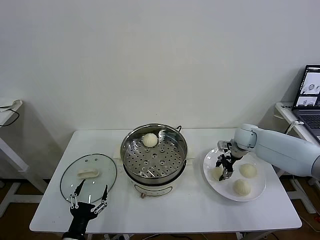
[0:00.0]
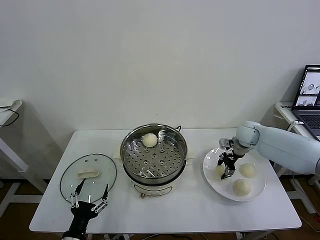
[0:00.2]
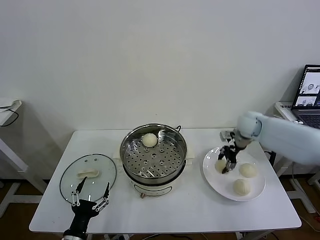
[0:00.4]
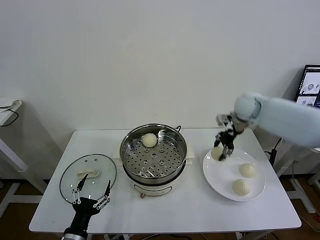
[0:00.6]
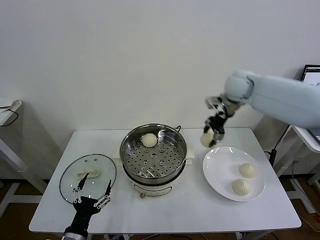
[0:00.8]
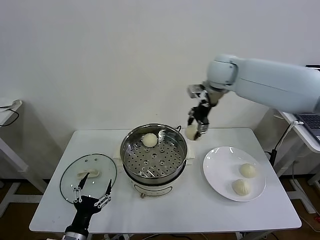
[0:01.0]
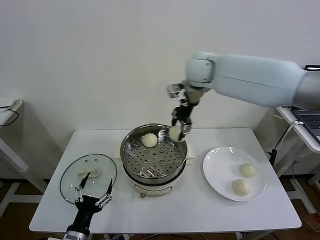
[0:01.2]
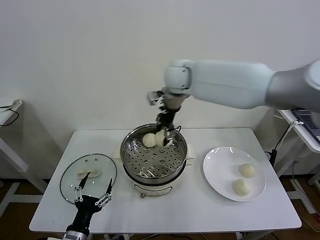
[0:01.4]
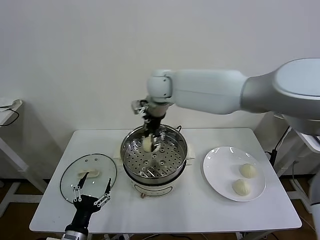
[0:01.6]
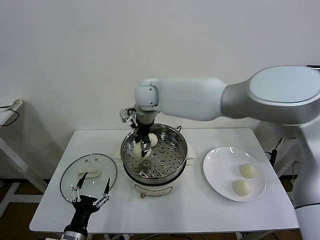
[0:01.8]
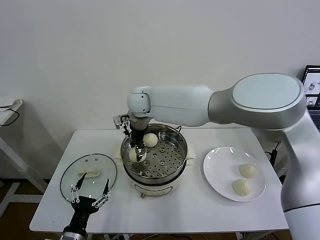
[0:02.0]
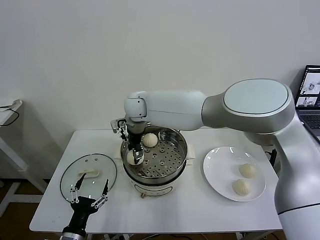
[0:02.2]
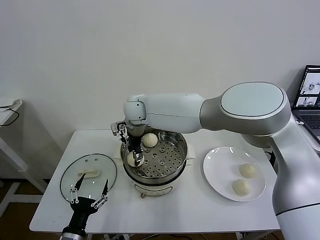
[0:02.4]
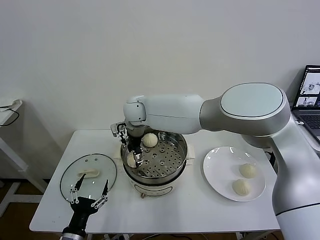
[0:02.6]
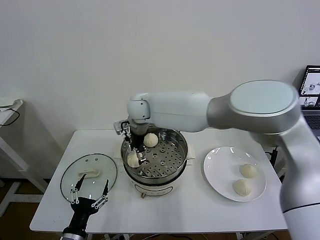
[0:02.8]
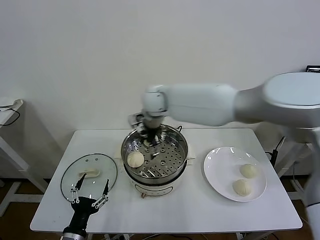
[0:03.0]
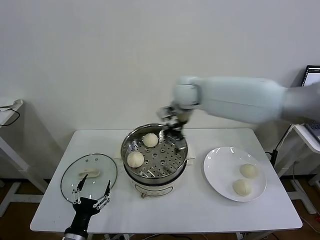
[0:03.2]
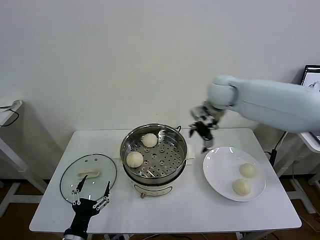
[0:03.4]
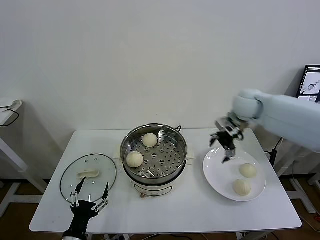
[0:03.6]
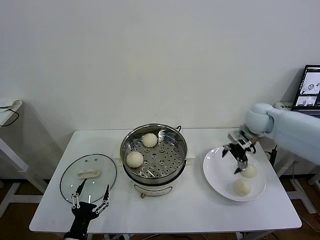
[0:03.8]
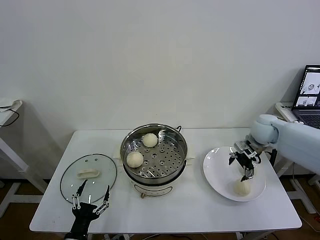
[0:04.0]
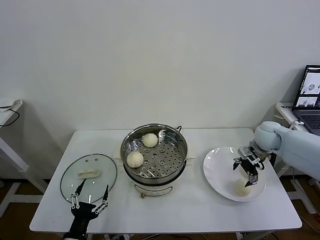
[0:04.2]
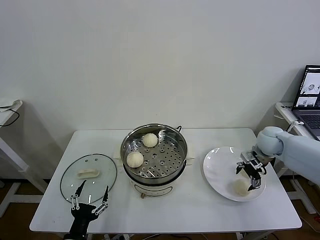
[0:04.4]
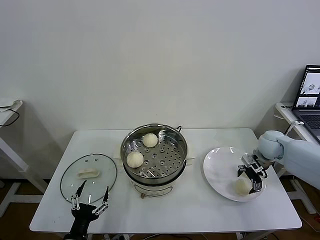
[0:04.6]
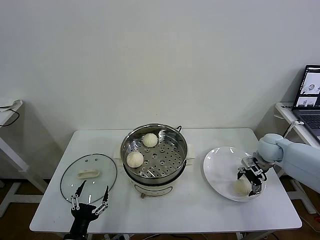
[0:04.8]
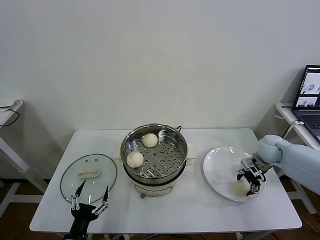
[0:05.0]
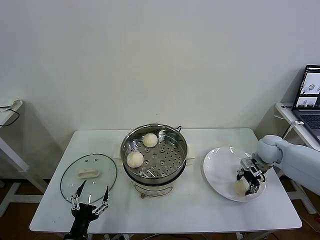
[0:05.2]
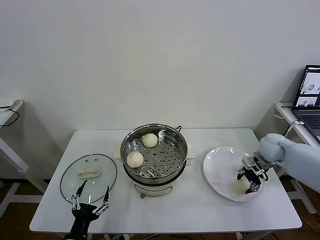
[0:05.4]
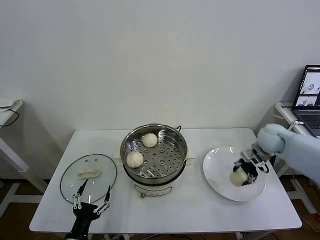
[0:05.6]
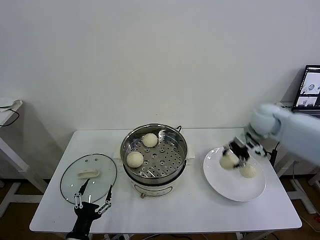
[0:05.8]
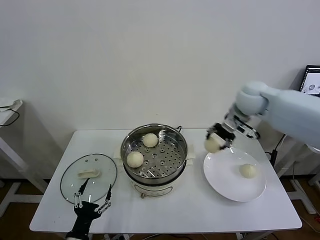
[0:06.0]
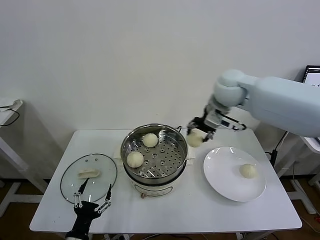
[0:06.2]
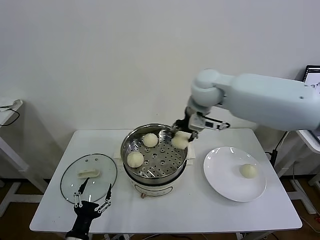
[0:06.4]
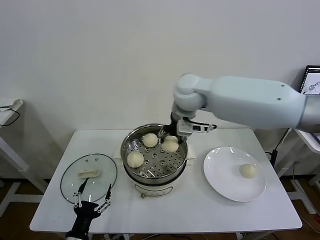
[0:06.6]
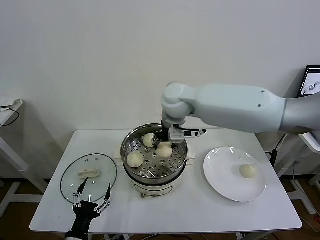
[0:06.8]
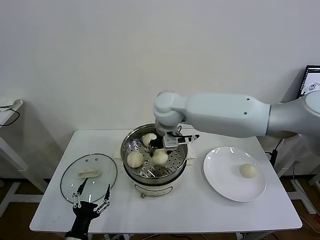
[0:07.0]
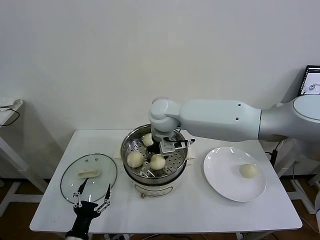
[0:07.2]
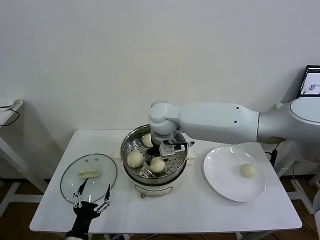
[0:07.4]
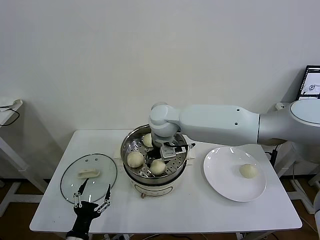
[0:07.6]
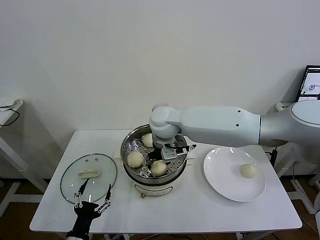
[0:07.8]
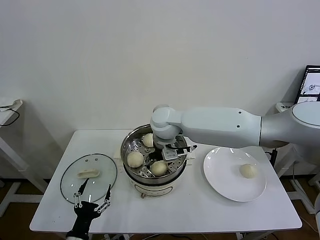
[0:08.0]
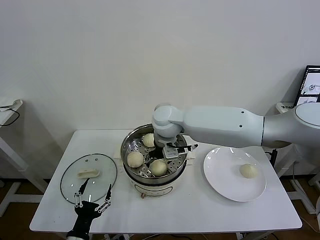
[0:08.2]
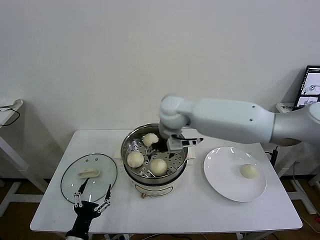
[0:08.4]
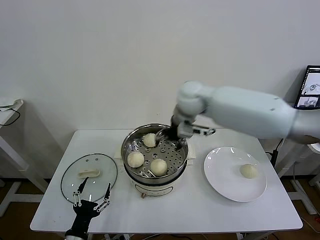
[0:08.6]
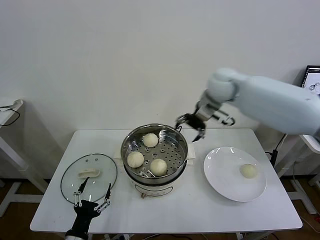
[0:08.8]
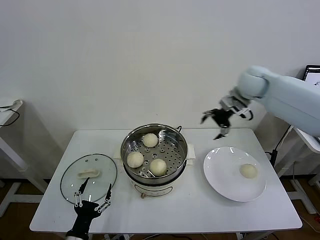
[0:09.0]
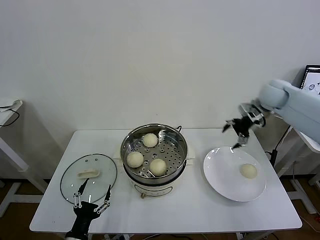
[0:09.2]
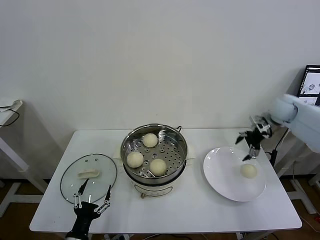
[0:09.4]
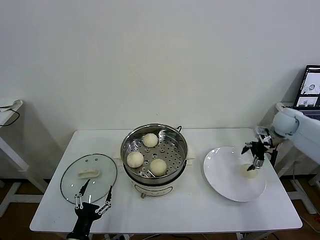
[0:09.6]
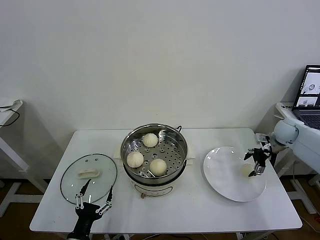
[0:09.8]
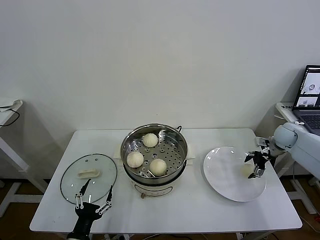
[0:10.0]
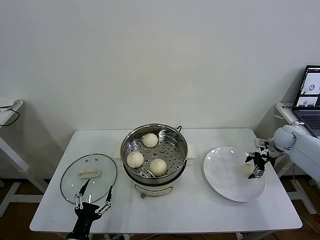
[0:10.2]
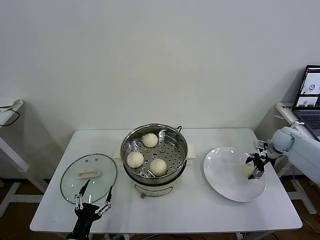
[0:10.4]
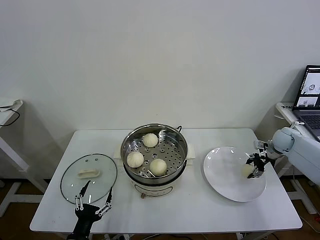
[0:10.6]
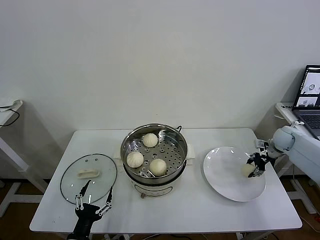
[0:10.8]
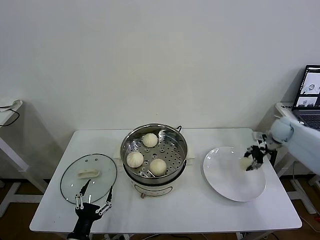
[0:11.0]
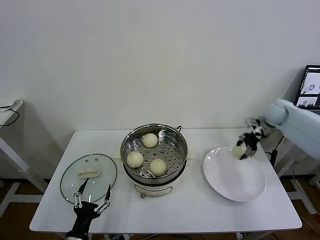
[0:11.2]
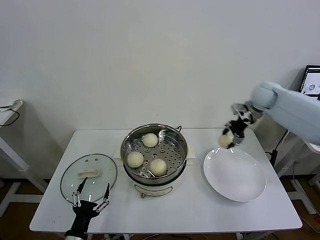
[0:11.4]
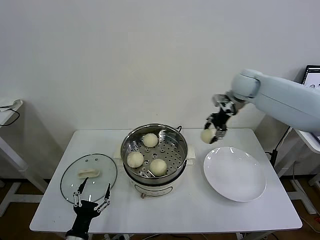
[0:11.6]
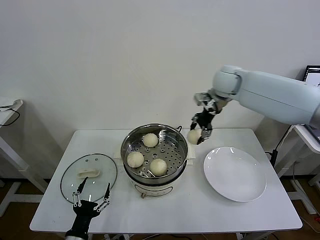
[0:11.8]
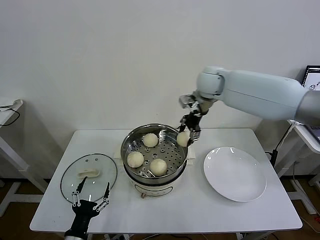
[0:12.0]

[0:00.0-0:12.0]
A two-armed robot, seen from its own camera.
Task of the whole recording: take steamed baozi put them in steamer then cover it.
Step, 0:00.0 to 0:02.6: Place the baozi on the steamer with right gripper.
Step, 0:02.8 to 0:05.2: Grasp the baozi in the plate with right gripper.
Step, 0:05.4 to 0:08.0: Place the baozi on the steamer with right gripper.
Step, 0:08.4 to 0:10.8: Grasp the baozi in the plate with right gripper.
0:00.0 to 0:01.6: The right gripper shifts approximately 40 cm to the left and upward.
0:01.6 to 0:03.0: The right gripper travels to the left and back again, about 5 cm each way, and opens up.
0:03.0 to 0:04.4: The right gripper travels to the right and downward by some 40 cm.
0:04.4 to 0:06.0: The right gripper shifts about 25 cm upward and to the left, and closes its fingers.
0:06.0 to 0:07.6: The right gripper moves to the left, roughly 25 cm.
0:07.6 to 0:09.0: The right gripper is displaced to the right by roughly 30 cm, and opens.
0:09.0 to 0:10.4: The right gripper is displaced downward and to the right by about 30 cm.
0:10.4 to 0:12.0: The right gripper is displaced to the left and upward by approximately 40 cm, and closes up.

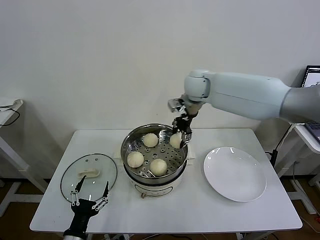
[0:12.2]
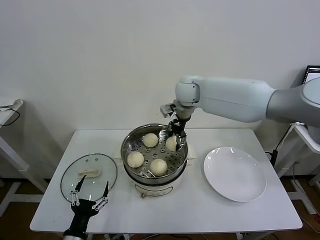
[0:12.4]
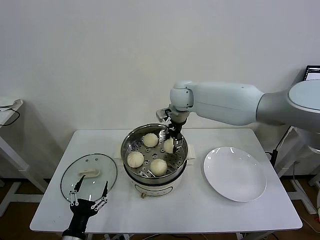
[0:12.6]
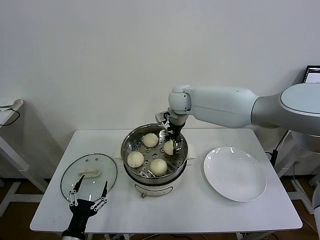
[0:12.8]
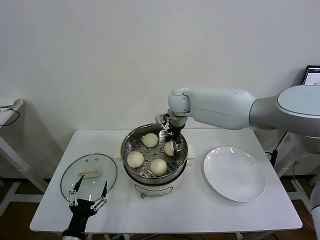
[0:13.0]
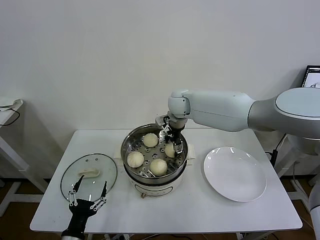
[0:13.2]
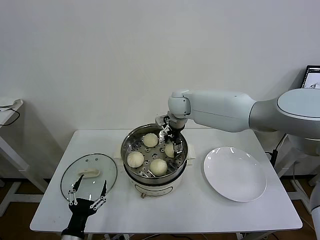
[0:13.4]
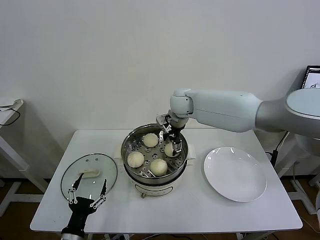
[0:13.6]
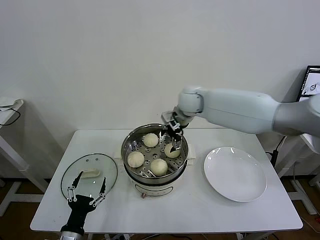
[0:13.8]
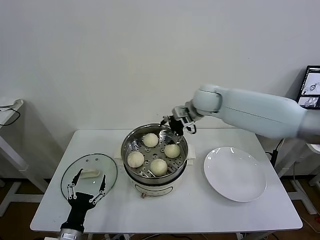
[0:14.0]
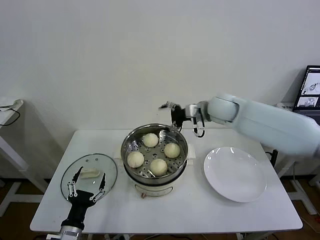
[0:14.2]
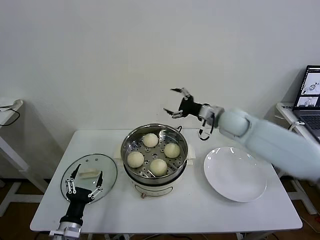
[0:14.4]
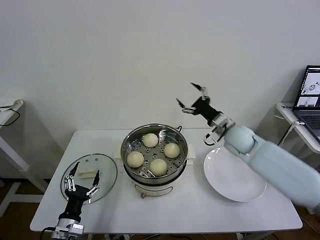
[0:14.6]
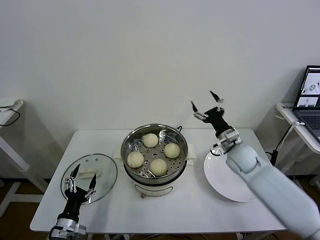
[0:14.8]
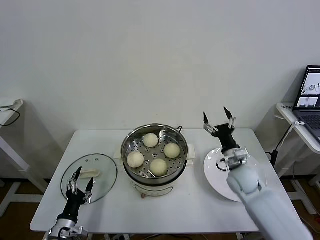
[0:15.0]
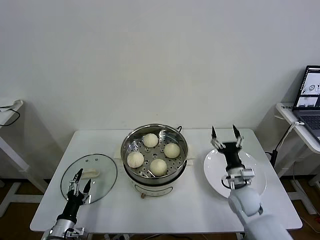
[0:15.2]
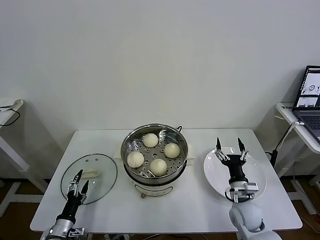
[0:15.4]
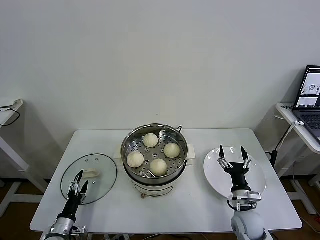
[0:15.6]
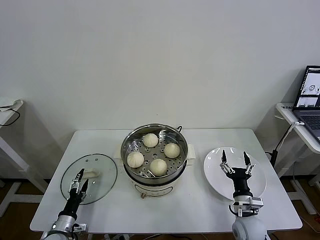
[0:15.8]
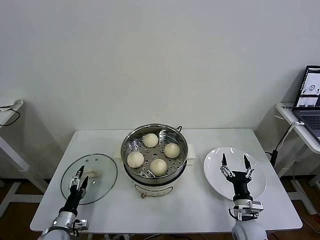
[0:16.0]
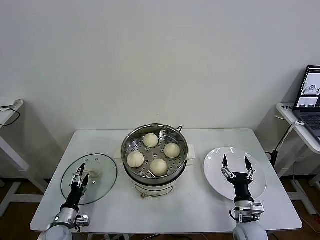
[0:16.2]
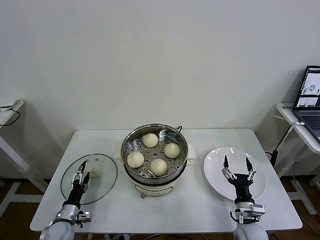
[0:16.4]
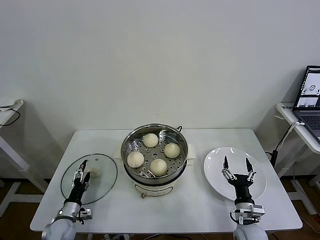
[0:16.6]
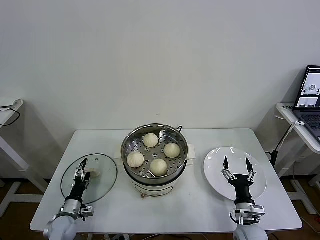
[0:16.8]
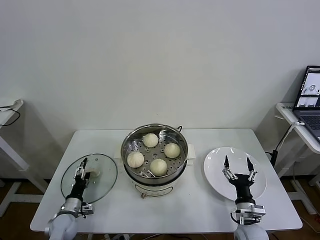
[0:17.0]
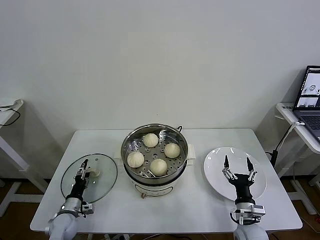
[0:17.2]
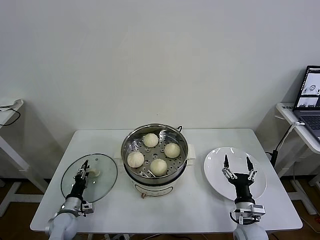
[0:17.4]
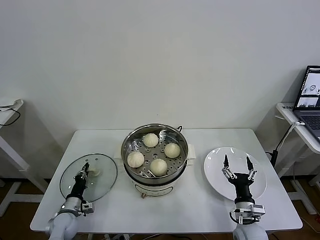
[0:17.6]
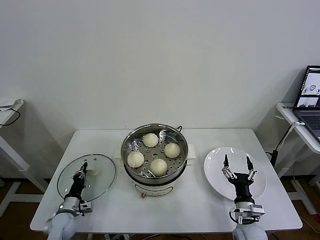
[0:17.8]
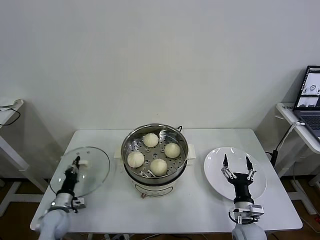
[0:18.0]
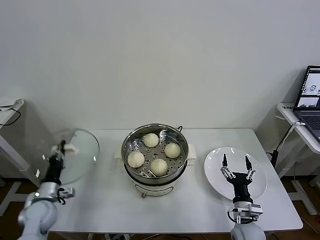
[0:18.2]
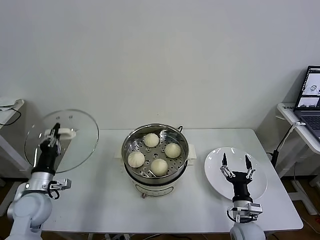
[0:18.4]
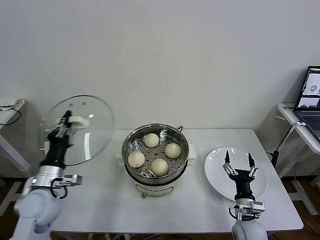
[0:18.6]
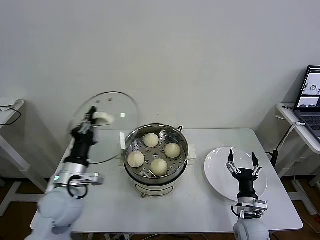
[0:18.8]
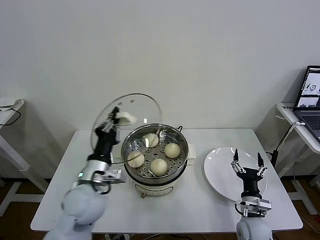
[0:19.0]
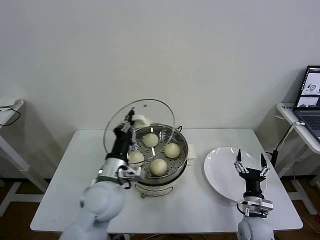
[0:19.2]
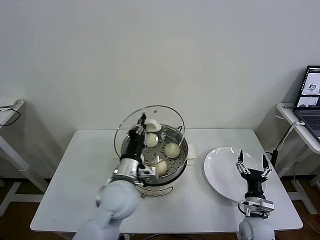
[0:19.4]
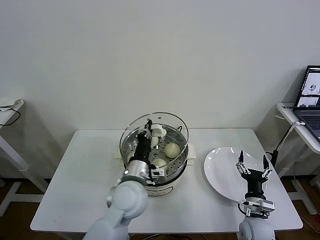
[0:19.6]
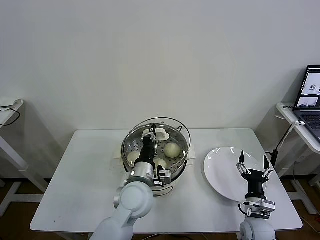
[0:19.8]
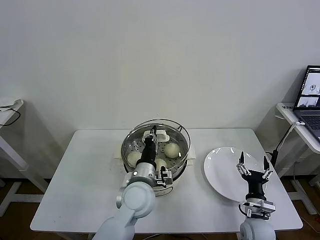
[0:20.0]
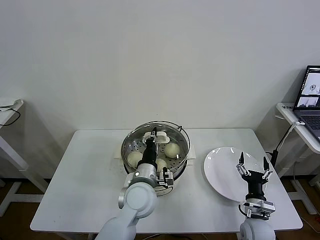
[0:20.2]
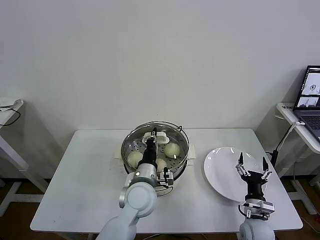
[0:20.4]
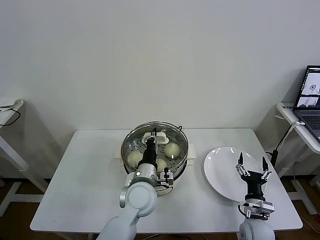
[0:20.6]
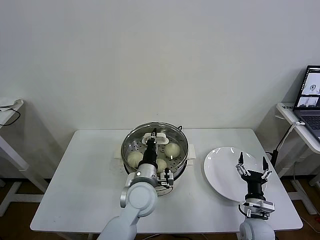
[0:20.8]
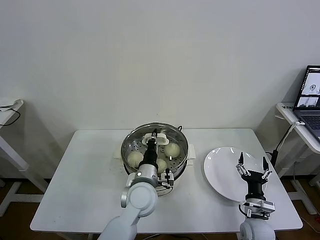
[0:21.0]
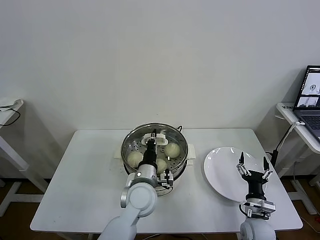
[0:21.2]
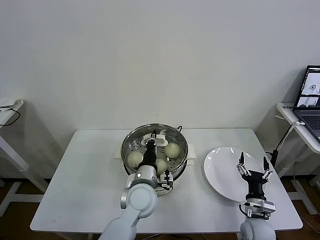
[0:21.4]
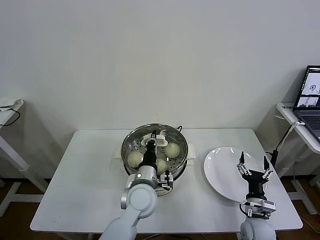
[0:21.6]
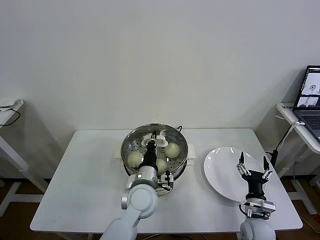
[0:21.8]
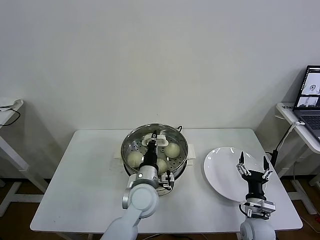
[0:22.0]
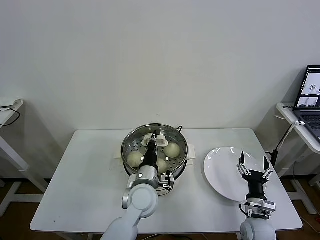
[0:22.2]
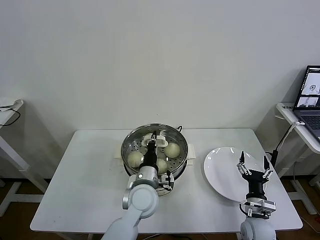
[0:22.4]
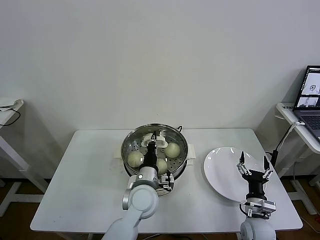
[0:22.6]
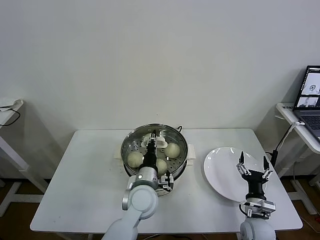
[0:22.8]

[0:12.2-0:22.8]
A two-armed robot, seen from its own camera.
Task of the whole recording: take steamed baozi put them in steamer then cover it.
Step, 0:13.6 to 0:18.0: Grasp the pot lid with left gripper.
0:12.2 to 0:13.8: The right gripper opens its fingers.
0:13.8 to 0:15.2: The right gripper moves downward, backward and to the right, approximately 40 cm; the left gripper travels downward, to the left and forward by about 10 cm.
0:15.2 to 0:16.8: The right gripper is displaced backward and downward by roughly 10 cm, while the left gripper is displaced forward by approximately 10 cm.
0:16.8 to 0:18.2: The left gripper heads upward, covering approximately 10 cm, and closes up.
0:18.2 to 0:19.8: The left gripper goes approximately 35 cm to the right and upward.
0:19.8 to 0:21.2: There are only small adjustments of the grippers.
0:21.2 to 0:22.8: Both grippers stay about where they are.
